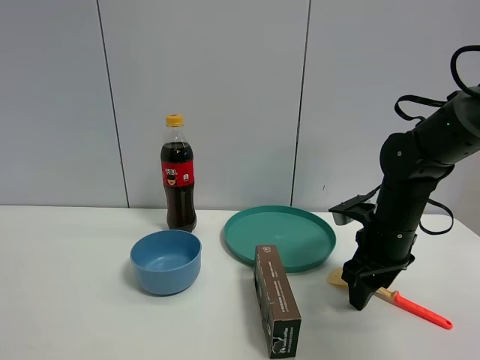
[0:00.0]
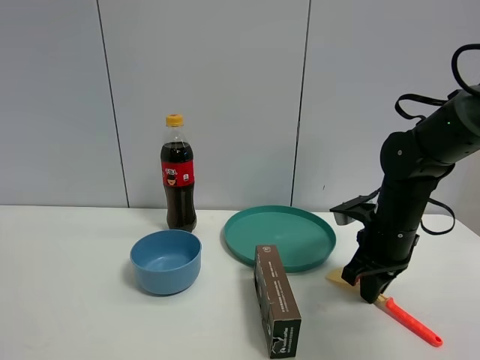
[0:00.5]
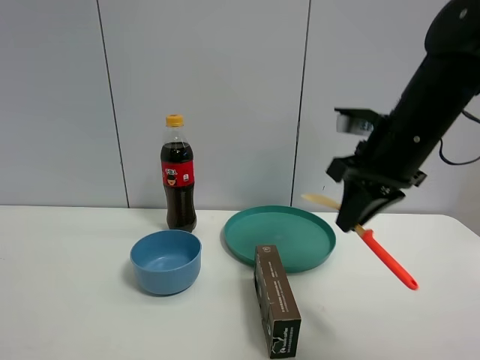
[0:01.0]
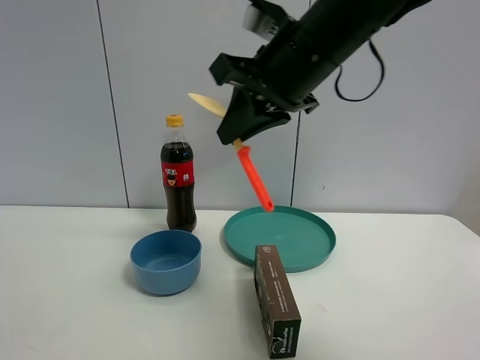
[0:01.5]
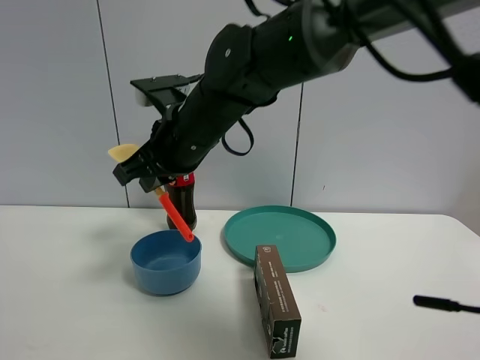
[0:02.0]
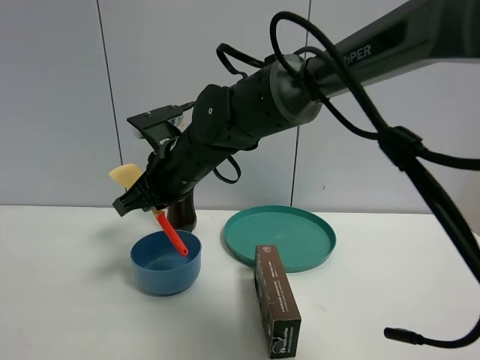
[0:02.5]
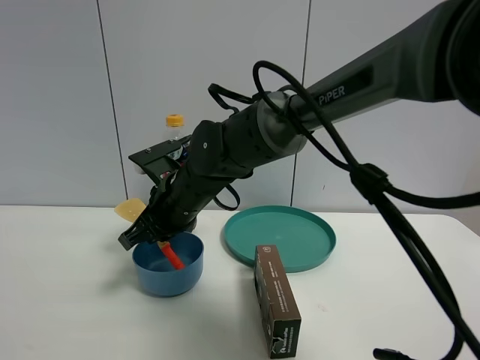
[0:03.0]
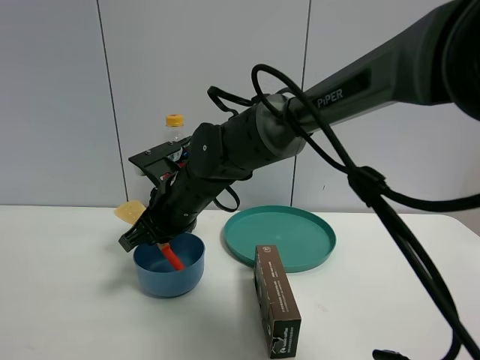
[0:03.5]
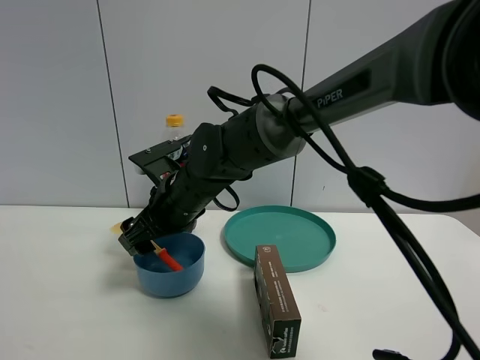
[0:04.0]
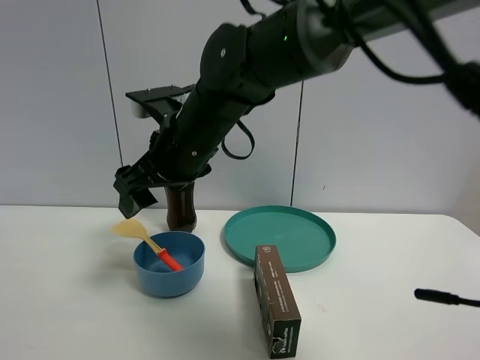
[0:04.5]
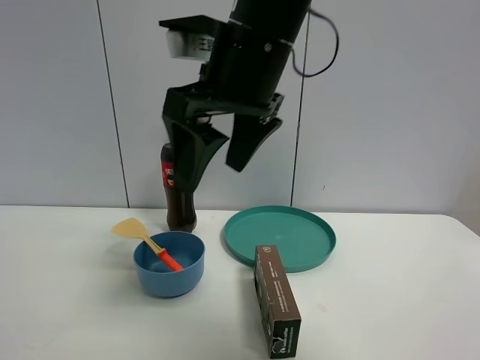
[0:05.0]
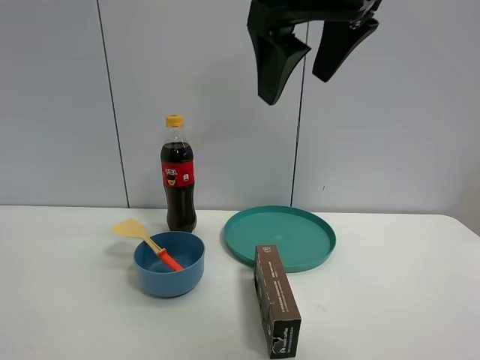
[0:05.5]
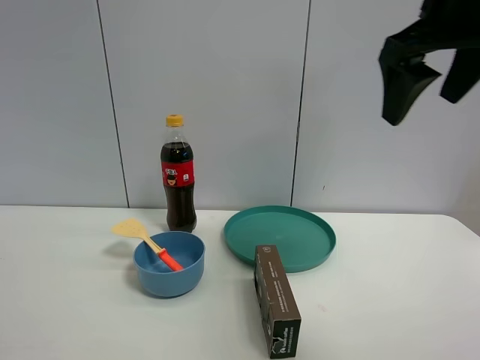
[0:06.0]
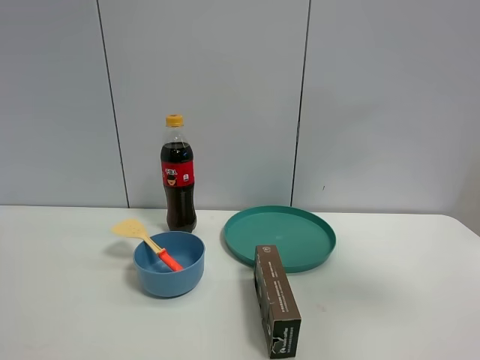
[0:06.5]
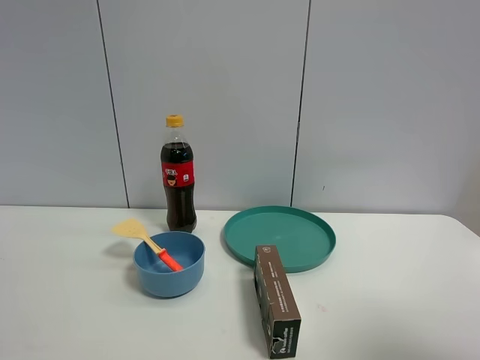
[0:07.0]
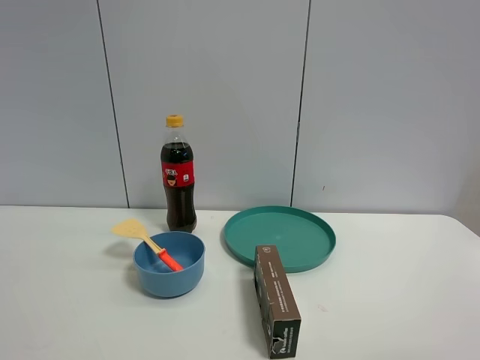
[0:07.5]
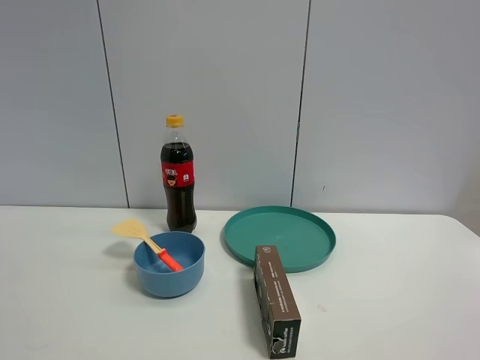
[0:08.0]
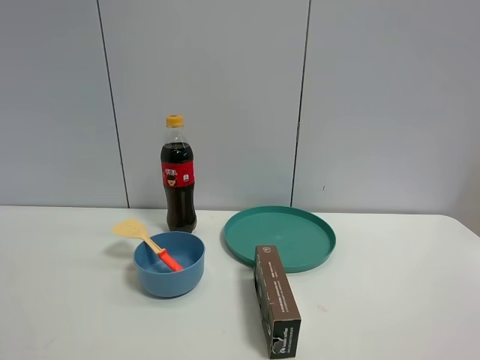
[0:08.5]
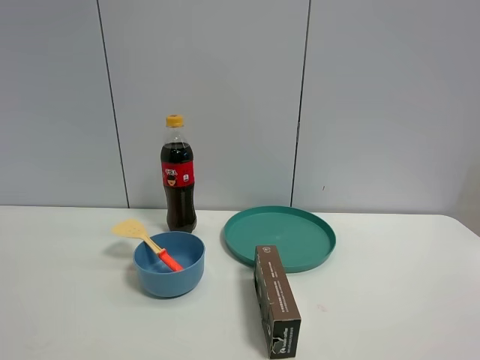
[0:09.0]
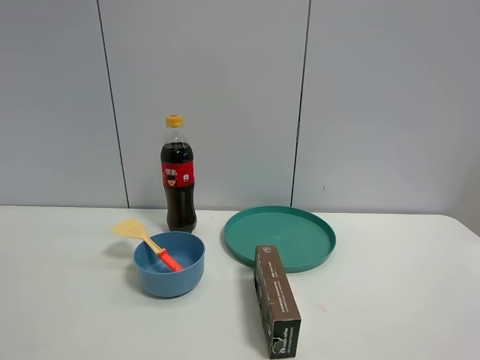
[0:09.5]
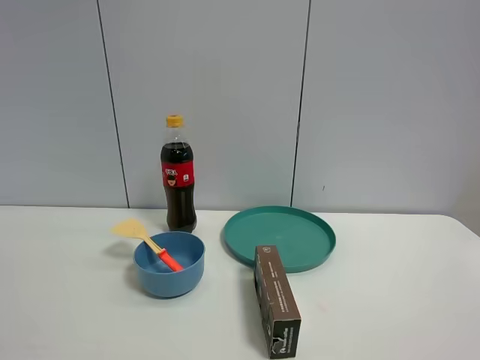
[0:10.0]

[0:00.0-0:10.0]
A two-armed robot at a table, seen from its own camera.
Task of the whole recording: the gripper move the object.
Step, 0:00.5 to 0:04.5: Place the cooking shovel into the blue bowl with the right gripper.
0:00.0 to 0:02.0: The right gripper travels to the left and upward by roughly 30 cm, and closes its fingers.
0:02.0 to 0:04.0: The right gripper moves downward, roughly 10 cm, and opens its fingers.
0:04.0 to 0:06.0: The right gripper heads to the right and upward, covering approximately 35 cm.
0:06.0 to 0:08.0: The right gripper travels backward by approximately 30 cm.

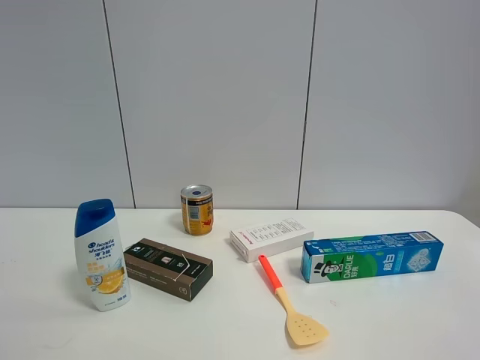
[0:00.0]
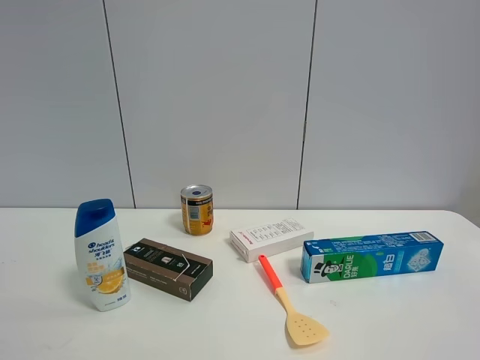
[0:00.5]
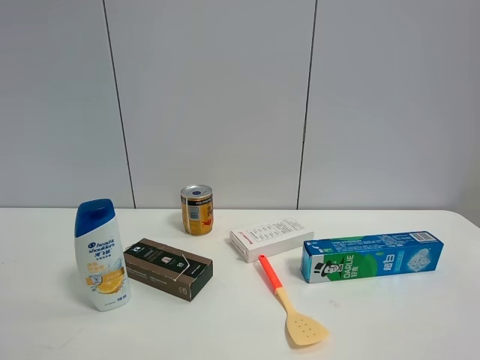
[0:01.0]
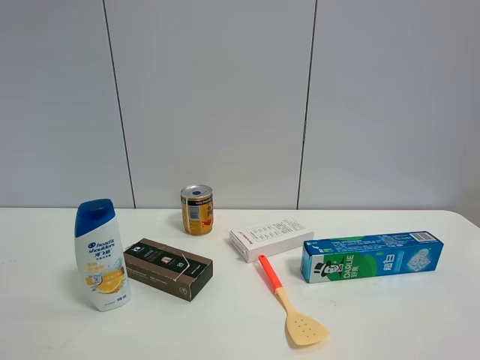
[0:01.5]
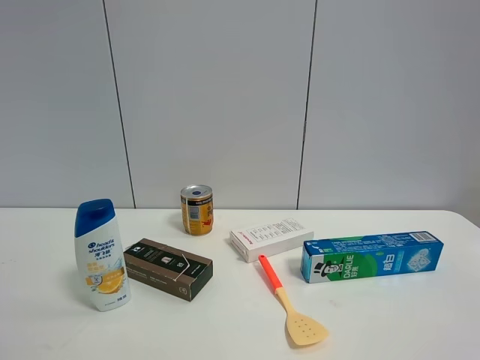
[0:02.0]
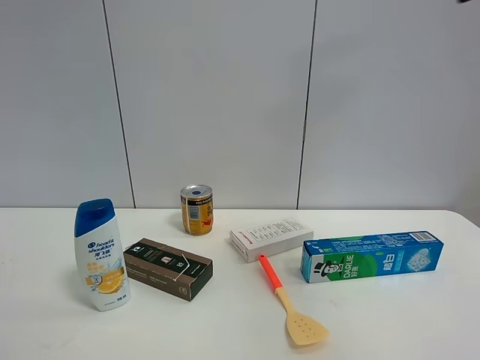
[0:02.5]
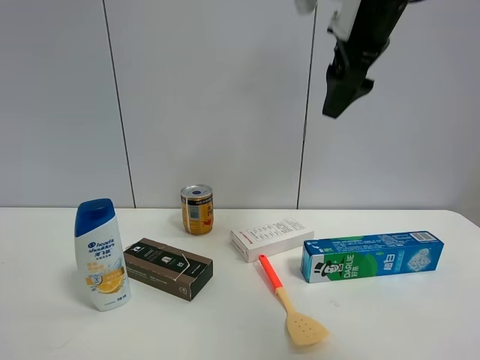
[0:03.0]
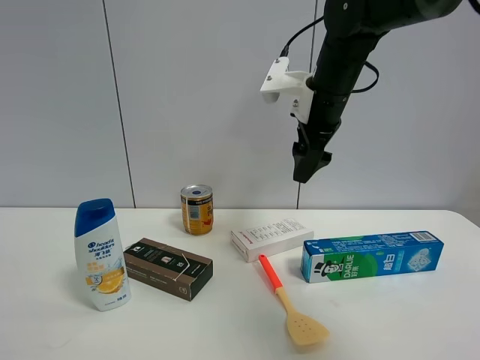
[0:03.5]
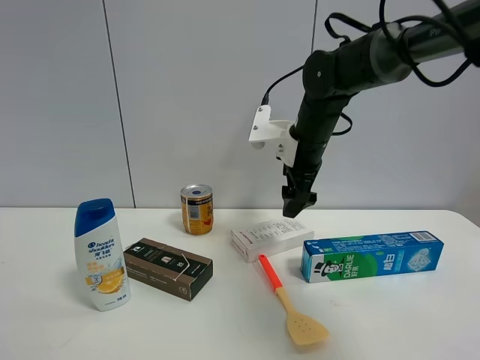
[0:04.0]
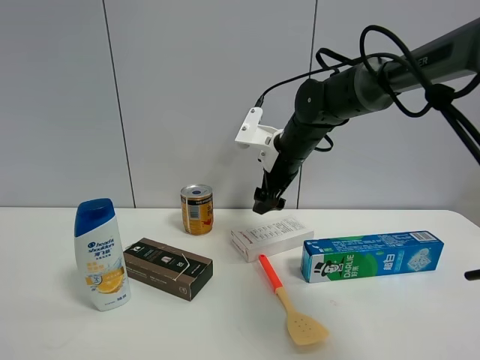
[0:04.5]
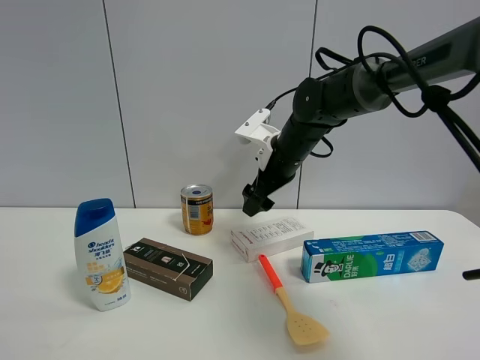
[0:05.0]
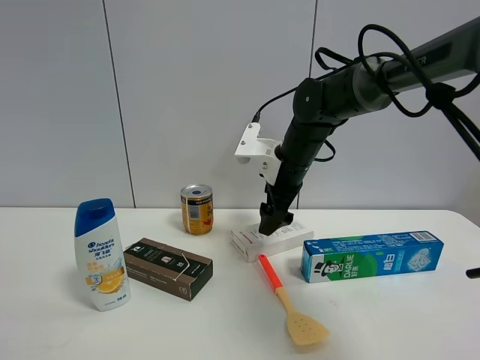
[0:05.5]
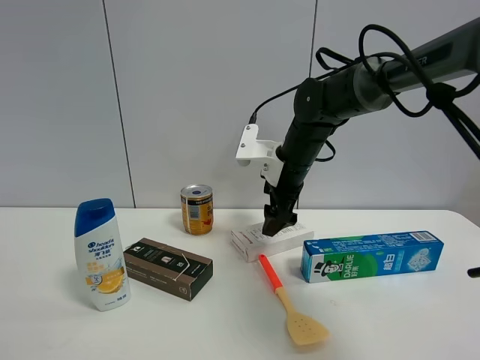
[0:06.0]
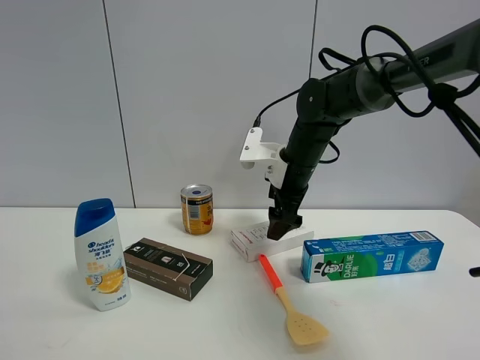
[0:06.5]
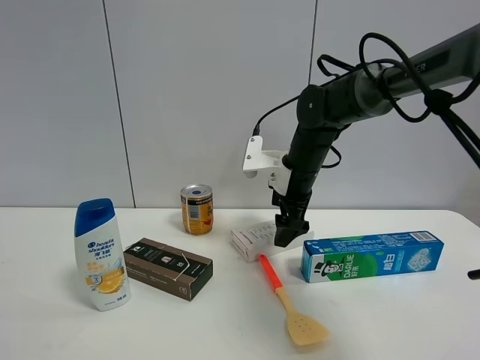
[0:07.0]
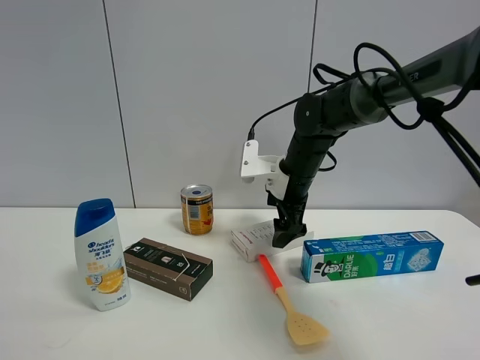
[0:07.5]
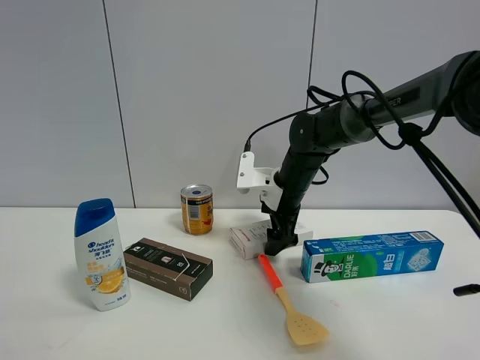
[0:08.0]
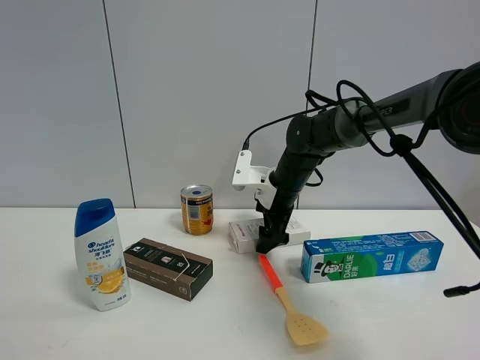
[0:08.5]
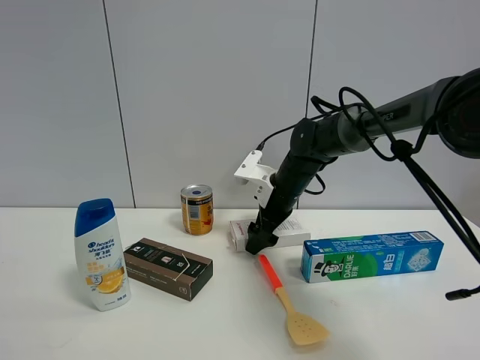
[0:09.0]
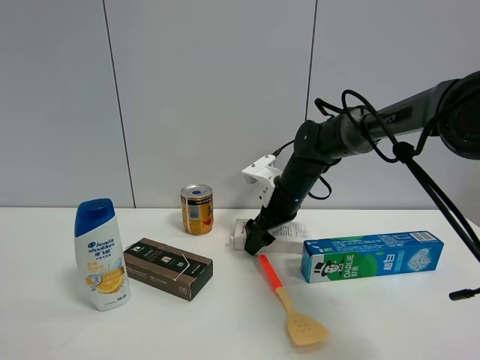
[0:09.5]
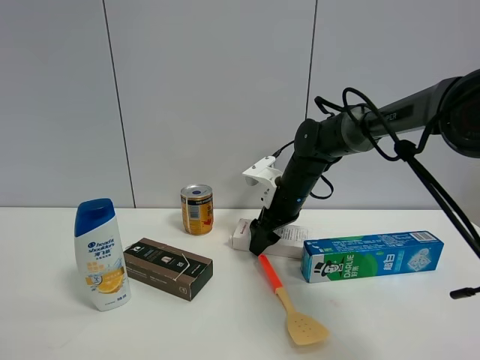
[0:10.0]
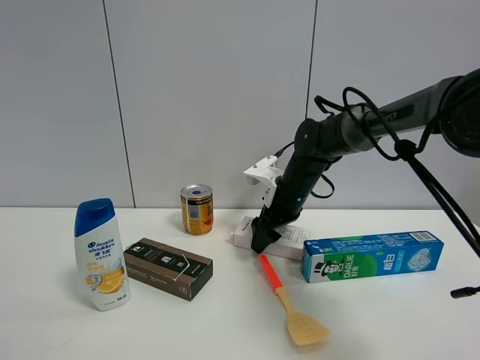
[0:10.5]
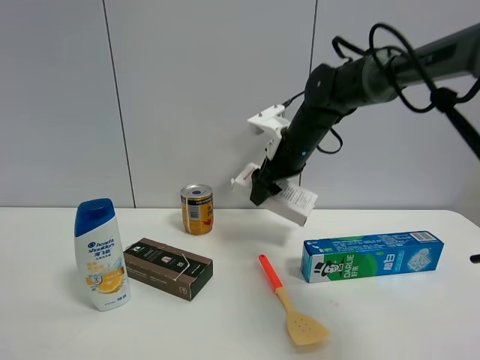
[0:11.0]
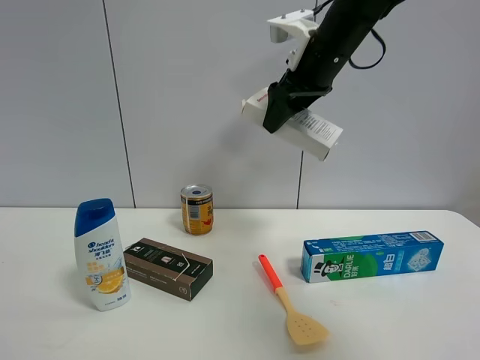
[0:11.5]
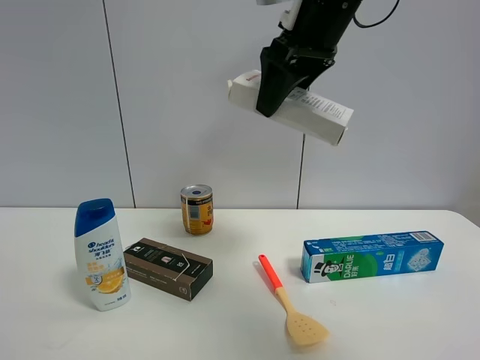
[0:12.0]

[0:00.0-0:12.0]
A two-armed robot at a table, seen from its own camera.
Task of the whole recording: the gripper move the object.
Step, 0:00.0 to 0:10.0: Grasp the USB box with the right gripper.
0:02.0 to 0:04.0: The right gripper shifts approximately 40 cm forward.
0:06.0 to 0:08.0: The grippers move only a little.
0:08.0 to 0:10.0: The right gripper closes.
0:10.0 to 0:12.0: The right gripper travels upward and backward by about 30 cm.

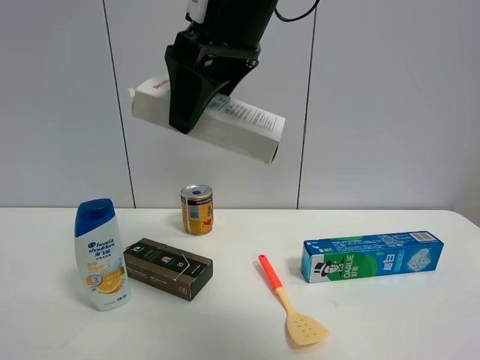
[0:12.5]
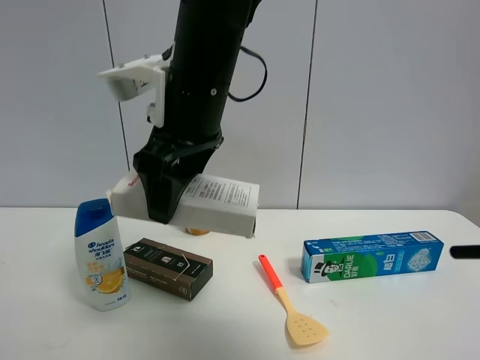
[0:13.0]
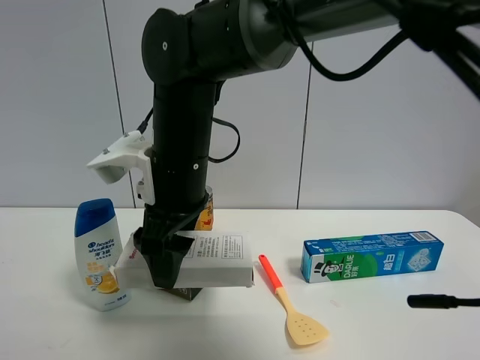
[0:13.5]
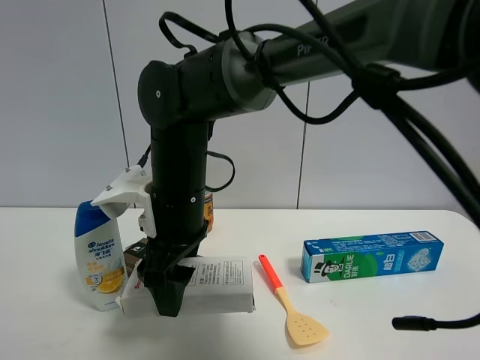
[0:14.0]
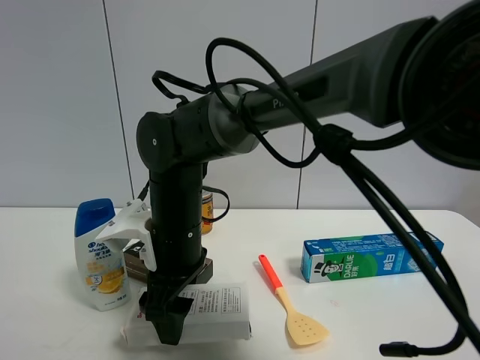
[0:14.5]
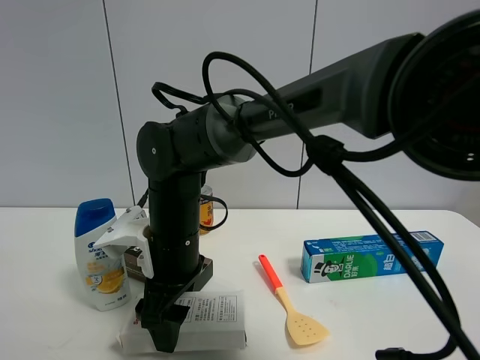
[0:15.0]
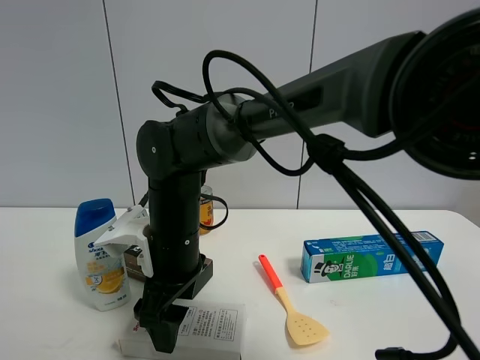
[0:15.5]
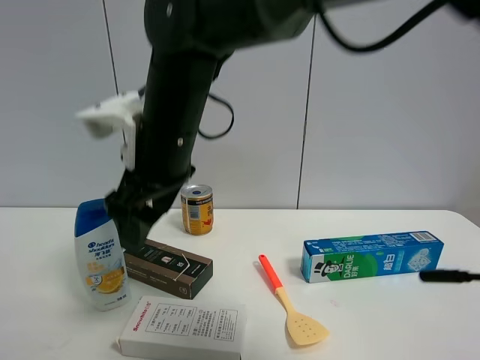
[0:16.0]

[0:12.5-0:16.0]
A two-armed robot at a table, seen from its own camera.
Task of the whole recording: the gripper move the object.
Step, 0:12.5 to 0:15.5: Place the USB box on the table with the right gripper.
0:12.5 to 0:14.5: The right gripper heads downward, covering about 25 cm.
0:14.5 to 0:16.0: The right gripper travels upward by roughly 15 cm.
